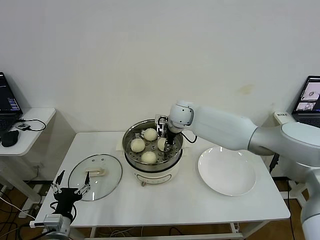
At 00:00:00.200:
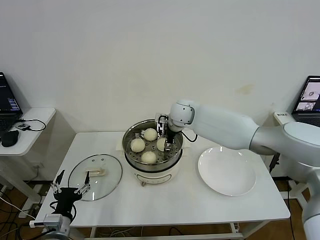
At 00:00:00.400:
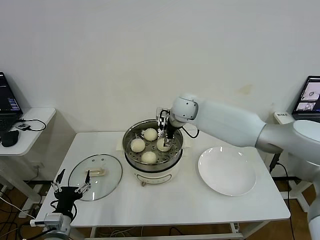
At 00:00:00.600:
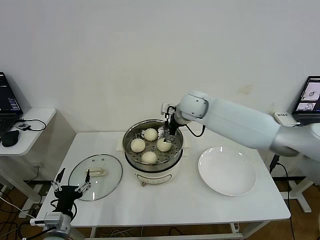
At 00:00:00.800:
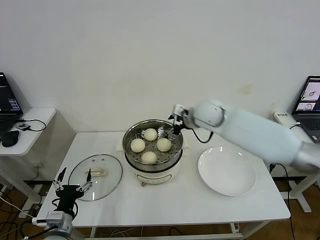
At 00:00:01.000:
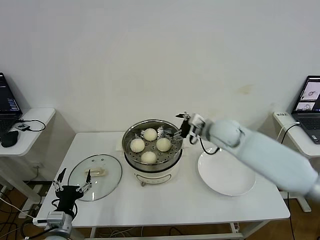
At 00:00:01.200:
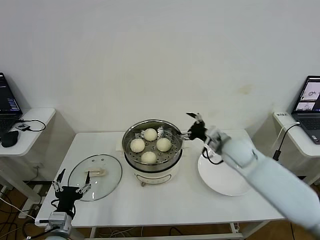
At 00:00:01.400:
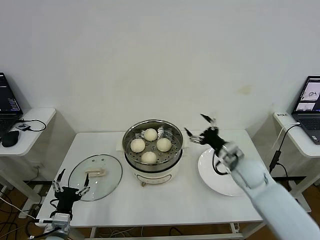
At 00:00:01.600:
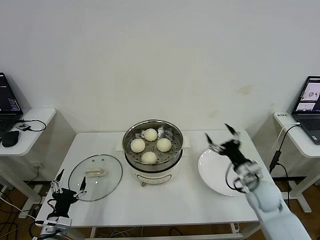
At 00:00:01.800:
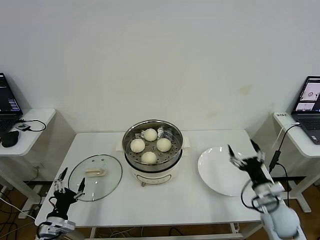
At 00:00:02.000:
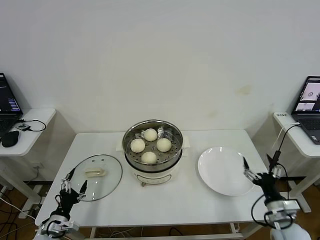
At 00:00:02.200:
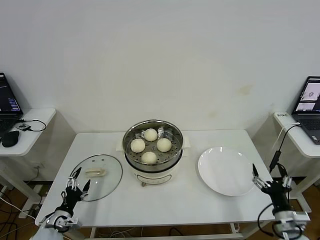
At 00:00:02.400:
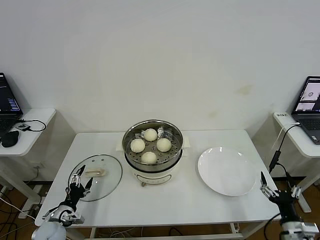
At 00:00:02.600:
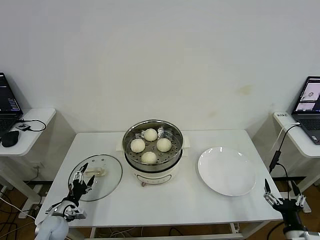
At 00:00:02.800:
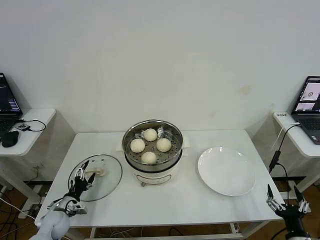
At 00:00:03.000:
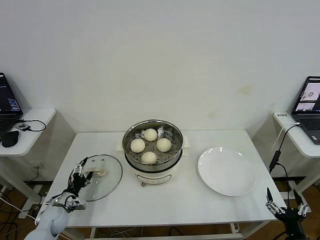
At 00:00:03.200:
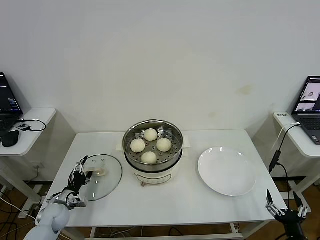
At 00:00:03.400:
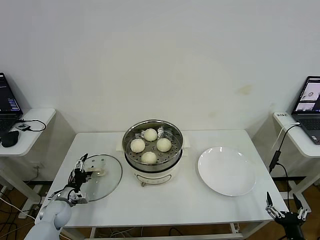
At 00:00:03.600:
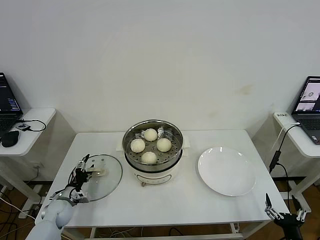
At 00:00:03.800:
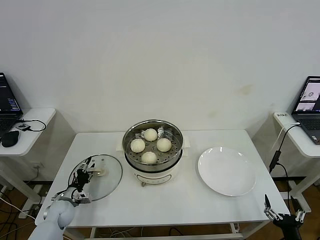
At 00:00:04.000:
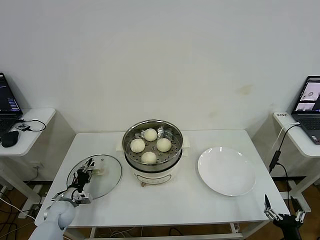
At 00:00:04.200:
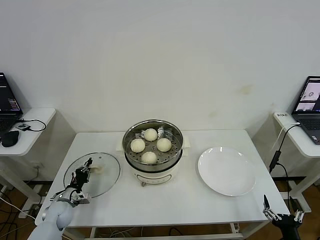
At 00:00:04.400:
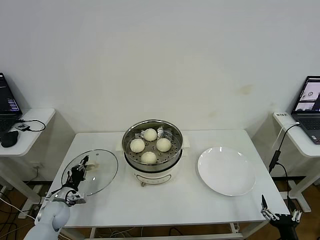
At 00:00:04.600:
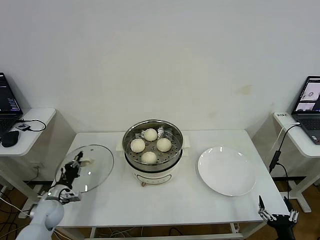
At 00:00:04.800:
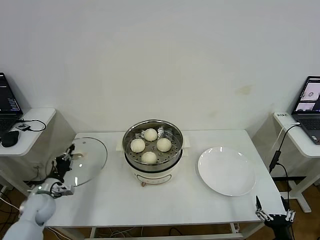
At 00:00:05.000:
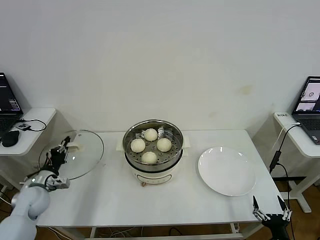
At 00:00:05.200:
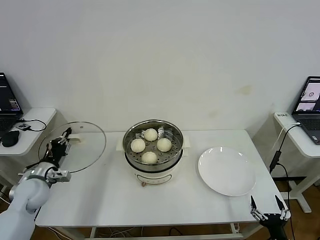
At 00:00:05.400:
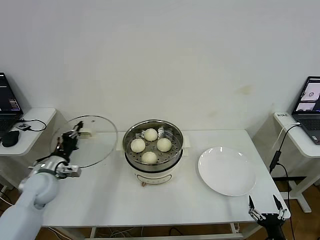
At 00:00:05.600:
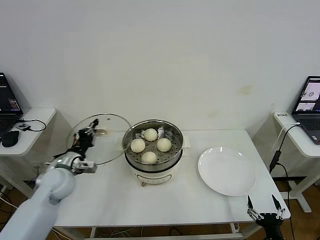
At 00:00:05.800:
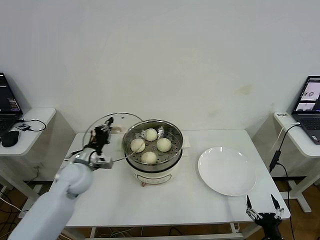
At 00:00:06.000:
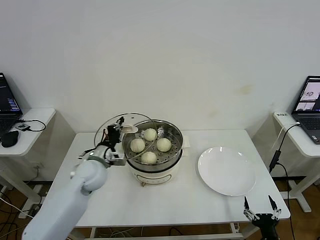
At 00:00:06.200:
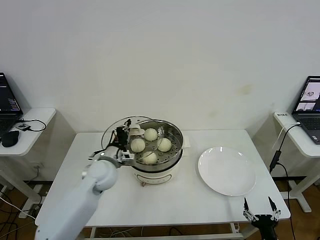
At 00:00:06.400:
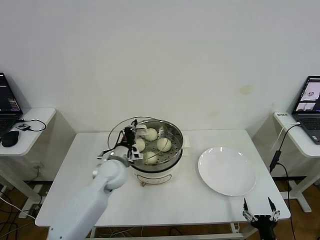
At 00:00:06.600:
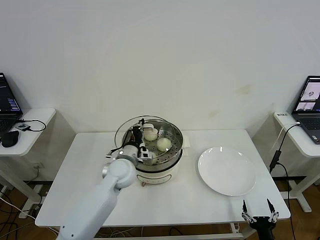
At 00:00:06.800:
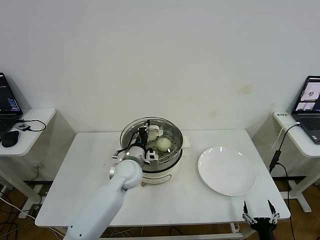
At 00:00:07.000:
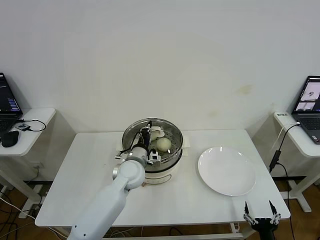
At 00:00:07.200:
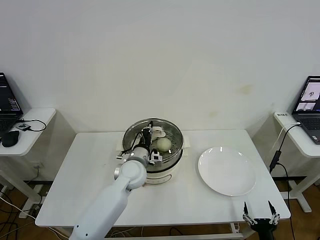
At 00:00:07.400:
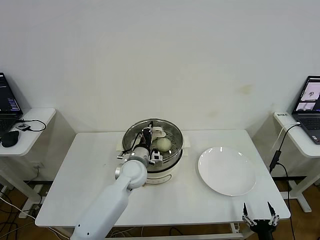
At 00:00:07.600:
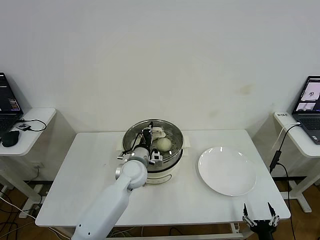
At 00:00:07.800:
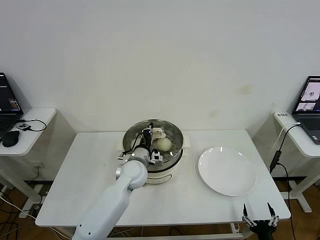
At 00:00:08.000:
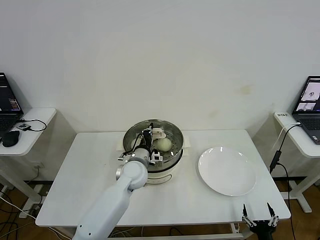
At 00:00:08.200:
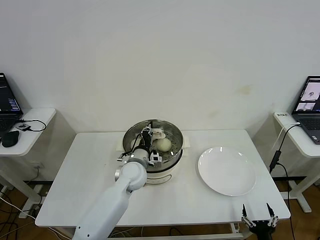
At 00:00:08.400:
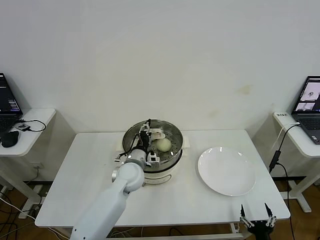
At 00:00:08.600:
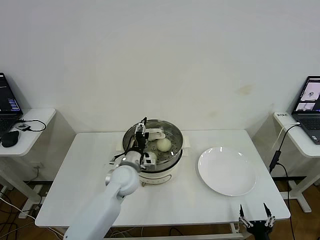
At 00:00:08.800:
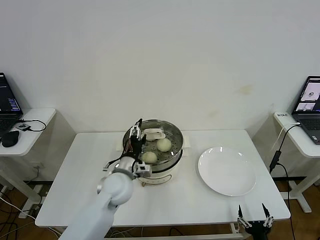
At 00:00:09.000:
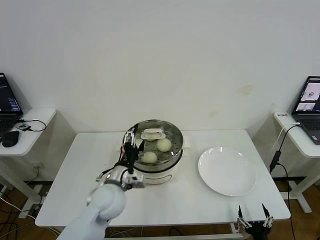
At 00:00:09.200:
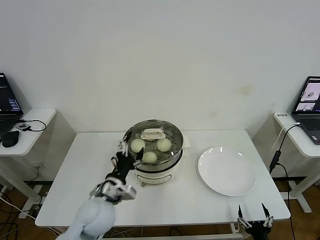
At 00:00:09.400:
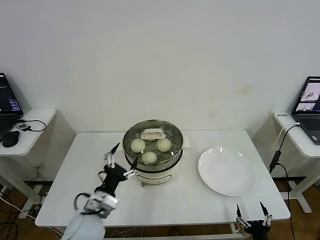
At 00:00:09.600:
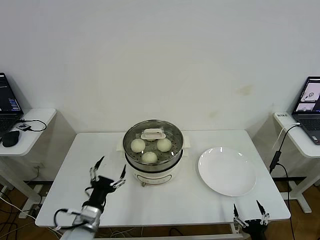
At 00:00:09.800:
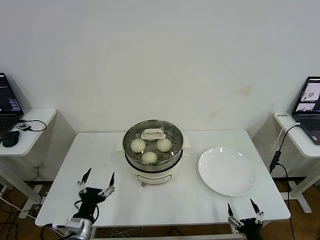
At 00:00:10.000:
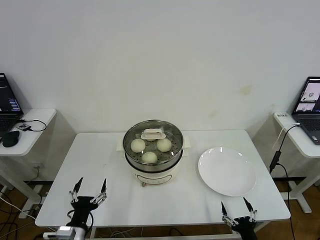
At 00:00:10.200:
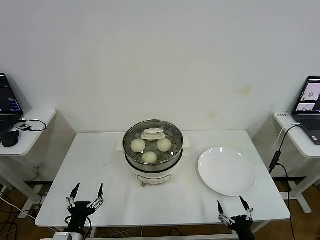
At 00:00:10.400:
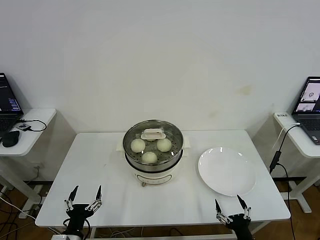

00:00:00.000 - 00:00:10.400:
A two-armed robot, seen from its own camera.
Step, 00:00:00.400 - 00:00:04.400: Grasp the pot lid with left gripper.
Step, 00:00:04.600 - 00:00:08.200: Place the pot lid on the steamer with left gripper.
00:00:00.000 - 00:00:01.400: The right gripper shifts some 30 cm to the right, backward and downward, and opens up.
00:00:01.400 - 00:00:03.000: The right gripper heads backward, to the right and downward, covering about 35 cm; the left gripper is displaced forward, downward and to the left by some 15 cm.
00:00:03.000 - 00:00:04.400: The left gripper closes up.
00:00:04.400 - 00:00:06.000: The left gripper moves upward and to the right, about 25 cm. Meanwhile the right gripper changes place by approximately 5 cm.
00:00:06.000 - 00:00:07.400: The left gripper goes some 15 cm to the right.
00:00:07.400 - 00:00:09.000: The left gripper heads backward and to the left, covering roughly 10 cm, and opens its fingers.
00:00:09.000 - 00:00:10.400: The right gripper ends up roughly 5 cm from where it was. Meanwhile the left gripper travels backward, to the left and downward by approximately 25 cm.

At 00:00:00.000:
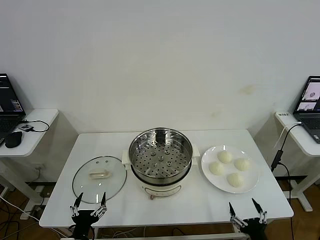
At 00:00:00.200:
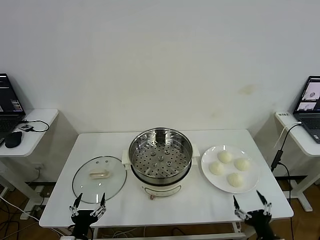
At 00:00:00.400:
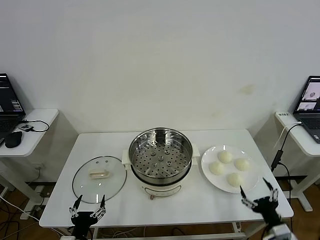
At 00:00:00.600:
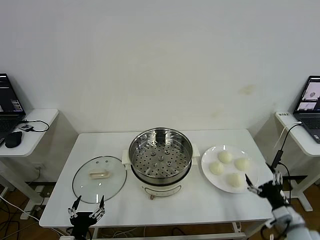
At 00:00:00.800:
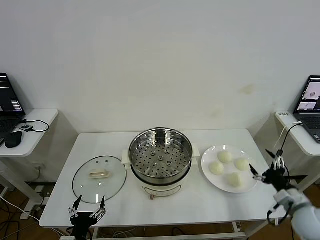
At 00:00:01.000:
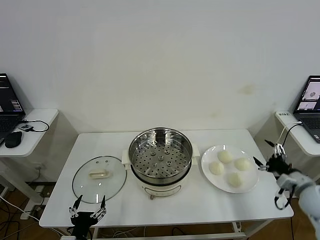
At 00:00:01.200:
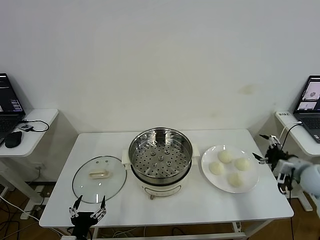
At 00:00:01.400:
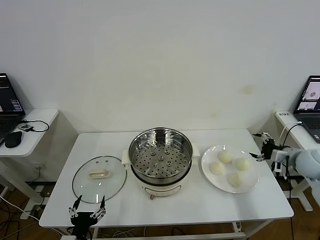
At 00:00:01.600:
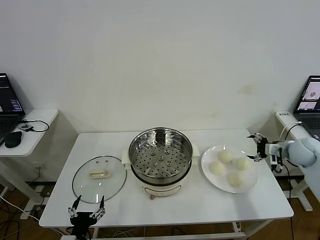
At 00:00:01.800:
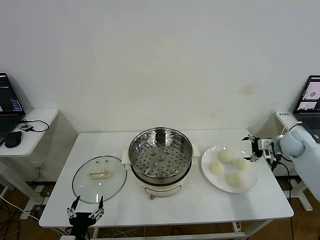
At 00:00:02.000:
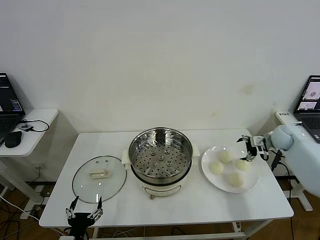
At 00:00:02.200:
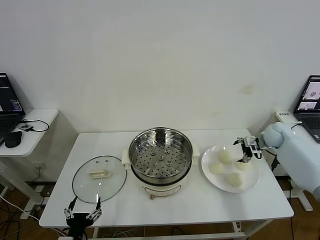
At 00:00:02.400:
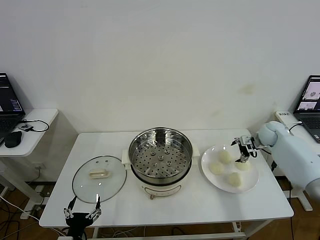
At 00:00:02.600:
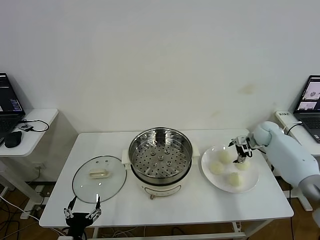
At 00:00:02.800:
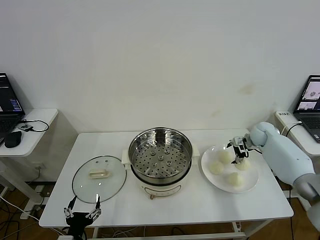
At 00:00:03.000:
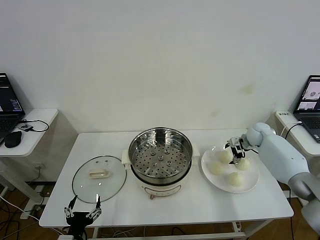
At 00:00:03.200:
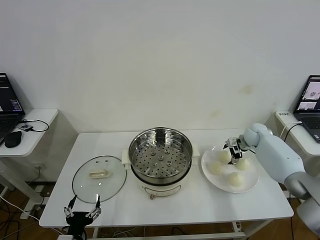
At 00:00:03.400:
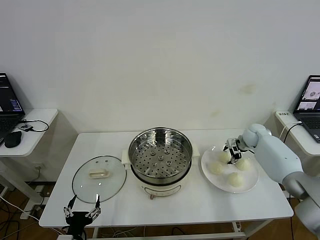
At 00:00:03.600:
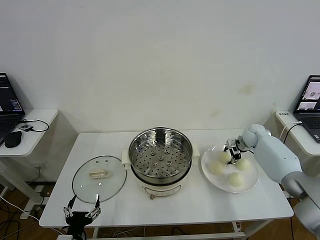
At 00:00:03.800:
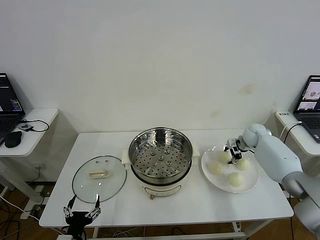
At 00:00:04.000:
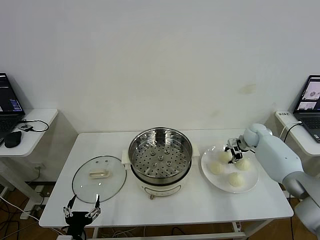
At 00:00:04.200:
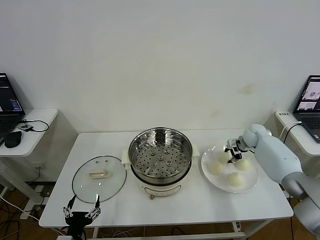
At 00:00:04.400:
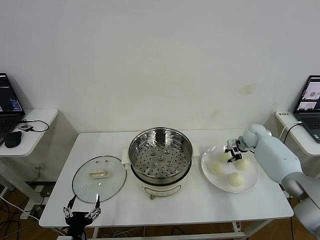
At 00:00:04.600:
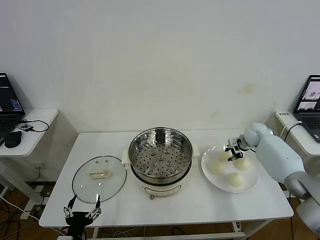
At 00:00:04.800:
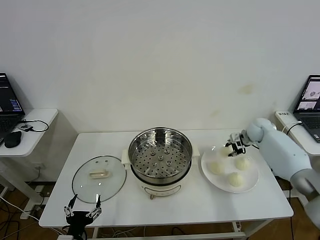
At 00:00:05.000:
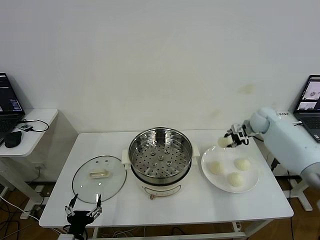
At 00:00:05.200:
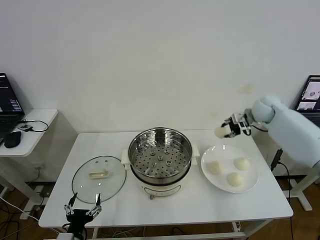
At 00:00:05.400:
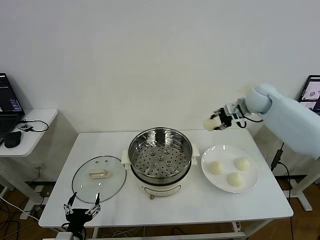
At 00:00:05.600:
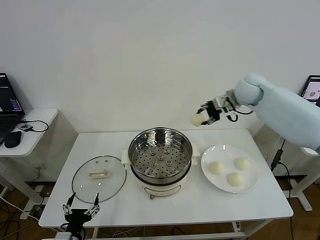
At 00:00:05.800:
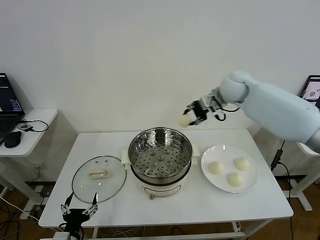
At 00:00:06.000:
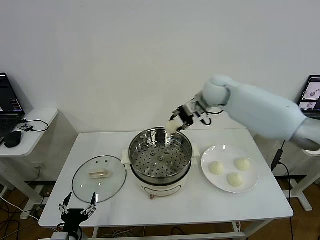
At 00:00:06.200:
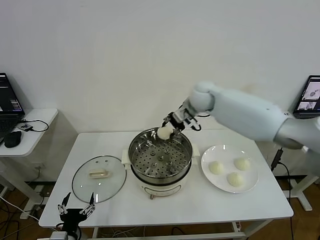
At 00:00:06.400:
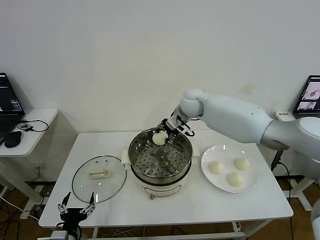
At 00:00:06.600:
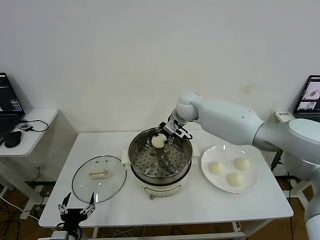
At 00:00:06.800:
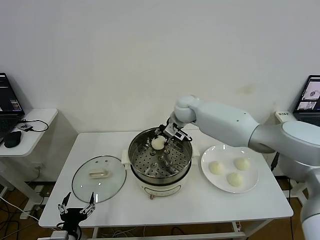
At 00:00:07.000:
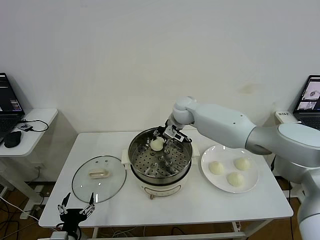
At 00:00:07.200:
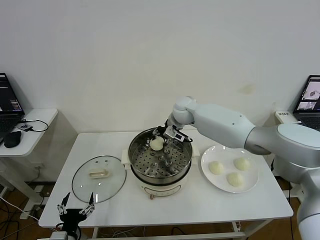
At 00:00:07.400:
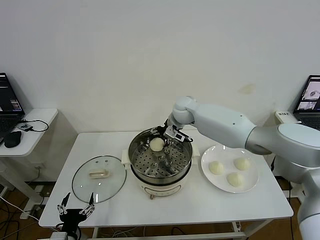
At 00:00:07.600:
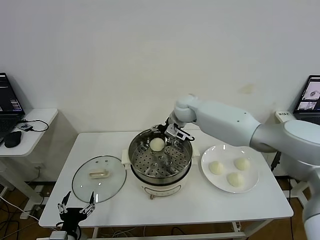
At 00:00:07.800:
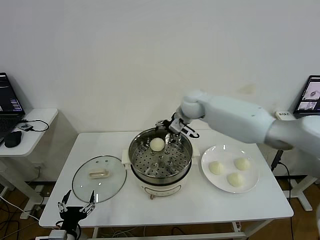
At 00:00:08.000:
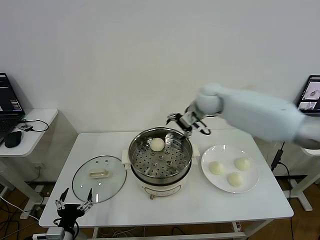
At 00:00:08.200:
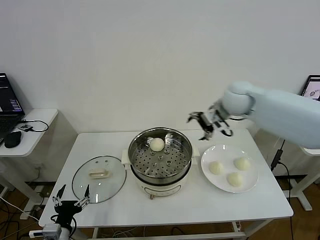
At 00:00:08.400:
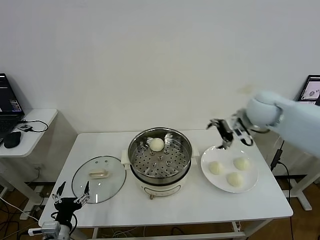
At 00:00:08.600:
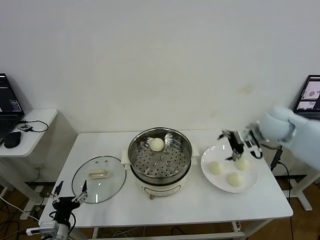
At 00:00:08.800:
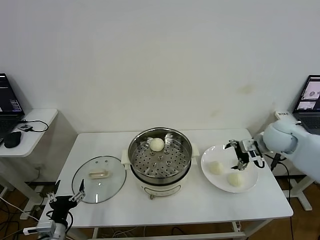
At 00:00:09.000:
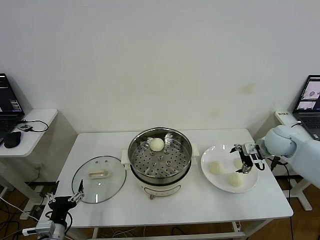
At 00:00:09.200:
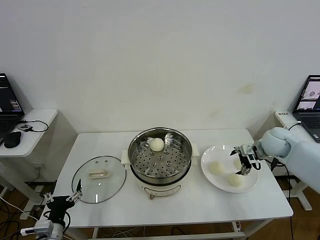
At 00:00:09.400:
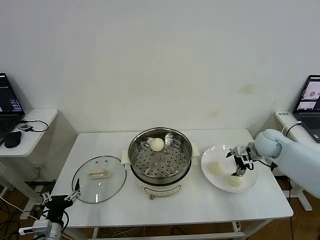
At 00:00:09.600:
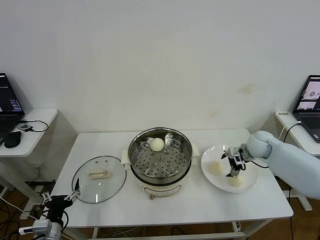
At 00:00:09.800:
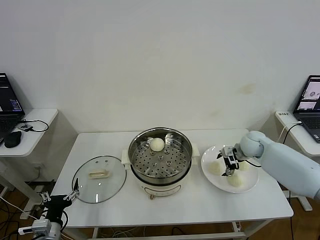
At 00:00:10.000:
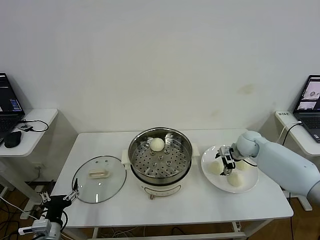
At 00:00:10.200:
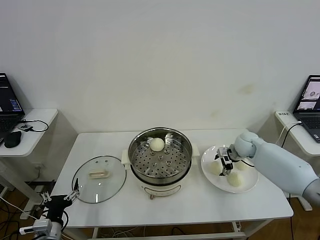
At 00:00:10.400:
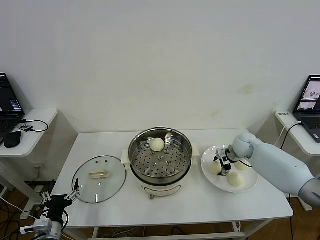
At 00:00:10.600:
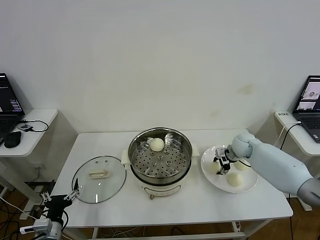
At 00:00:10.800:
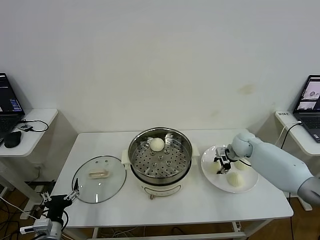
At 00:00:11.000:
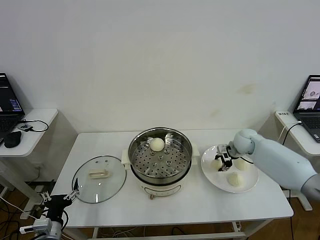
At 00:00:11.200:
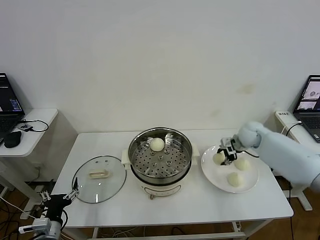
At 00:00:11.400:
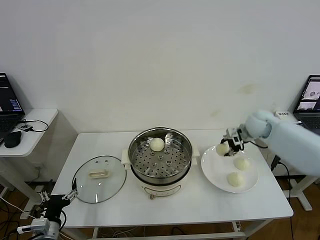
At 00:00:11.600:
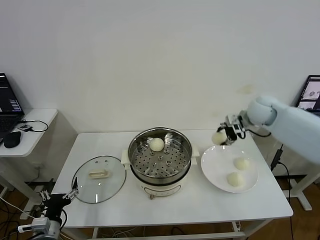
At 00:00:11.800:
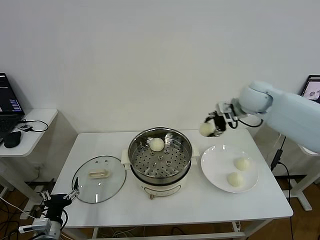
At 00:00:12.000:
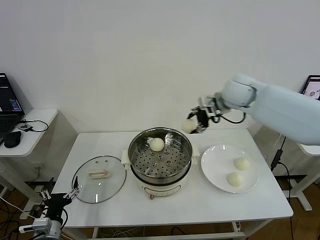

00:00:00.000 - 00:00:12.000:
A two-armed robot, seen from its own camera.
Step, 00:00:00.000 - 00:00:04.400: Grasp the baozi in the plate with right gripper.
Step, 00:00:04.600 - 00:00:07.400: Place the baozi on the steamer with right gripper.
Step, 00:00:07.600 - 00:00:10.800: Grasp the baozi in the plate with right gripper.
00:00:01.600 - 00:00:03.000: The right gripper travels forward, to the left and downward by about 15 cm.
00:00:03.000 - 00:00:04.400: The right gripper closes.
00:00:04.400 - 00:00:06.000: The right gripper shifts about 30 cm upward and to the left.
00:00:06.000 - 00:00:07.600: The right gripper heads to the left and downward, covering about 10 cm, and opens.
00:00:07.600 - 00:00:09.000: The right gripper travels to the right and backward by some 30 cm.
00:00:09.000 - 00:00:10.400: The right gripper travels downward, forward and to the left by about 15 cm.
00:00:10.400 - 00:00:12.000: The right gripper travels upward and to the left by approximately 25 cm.
